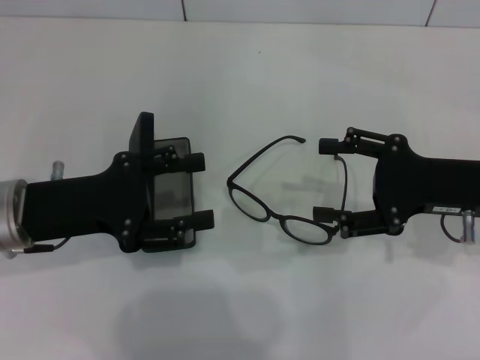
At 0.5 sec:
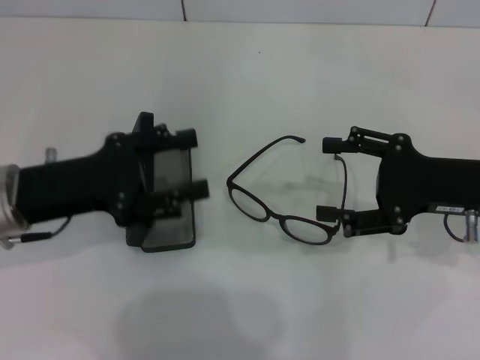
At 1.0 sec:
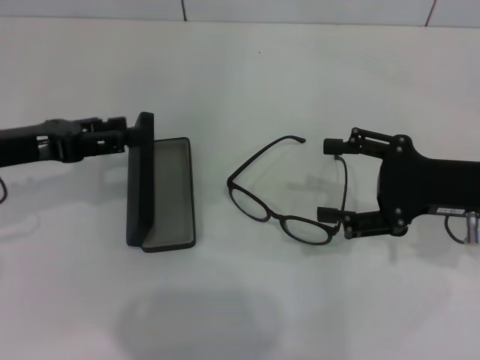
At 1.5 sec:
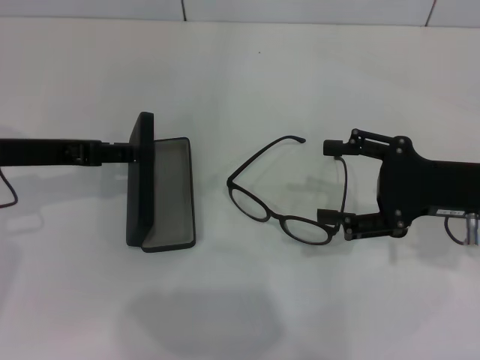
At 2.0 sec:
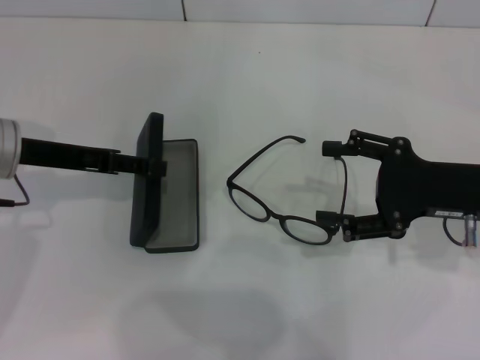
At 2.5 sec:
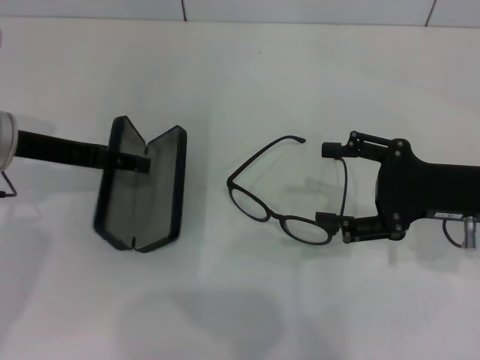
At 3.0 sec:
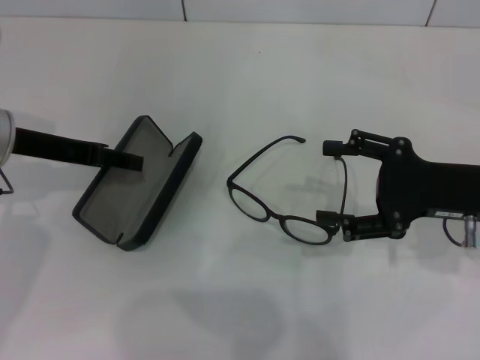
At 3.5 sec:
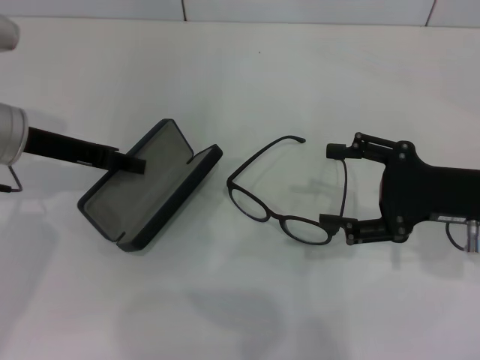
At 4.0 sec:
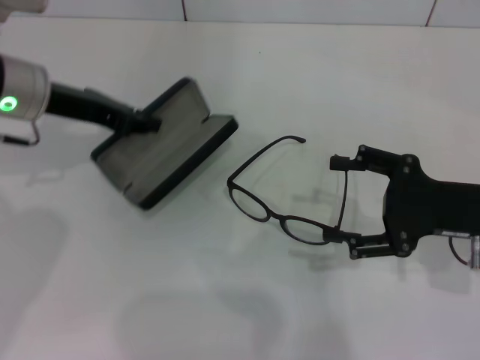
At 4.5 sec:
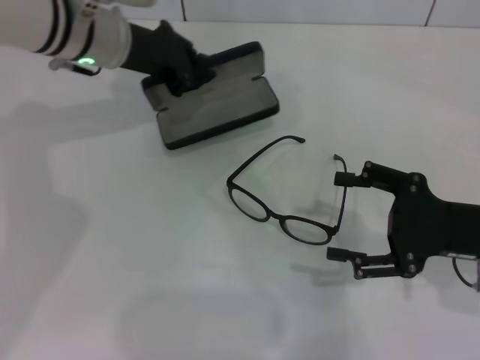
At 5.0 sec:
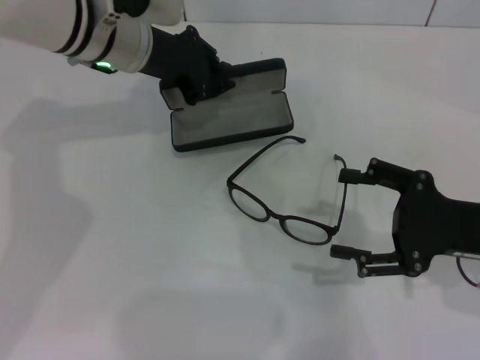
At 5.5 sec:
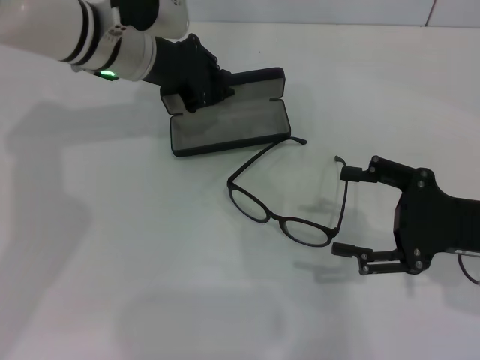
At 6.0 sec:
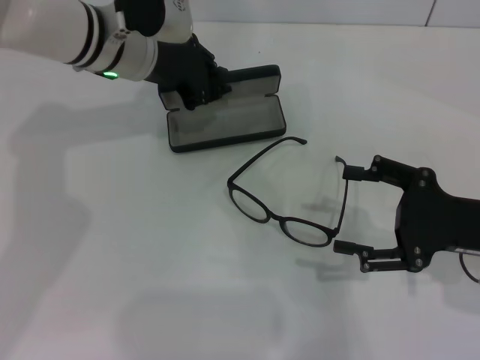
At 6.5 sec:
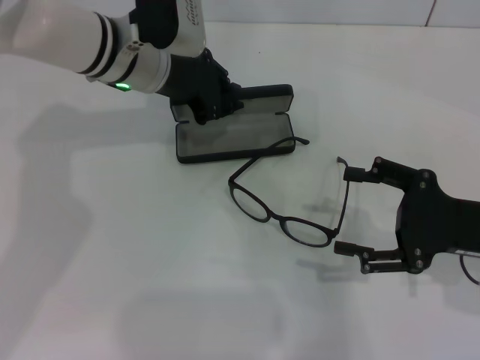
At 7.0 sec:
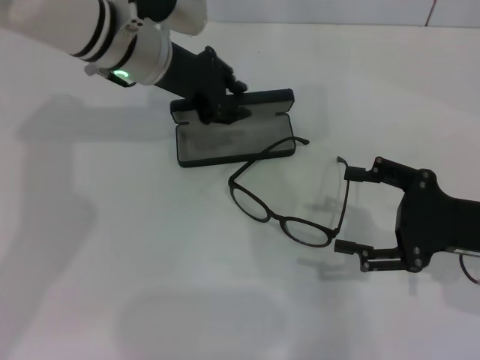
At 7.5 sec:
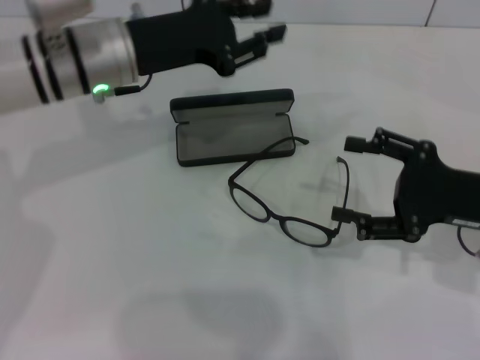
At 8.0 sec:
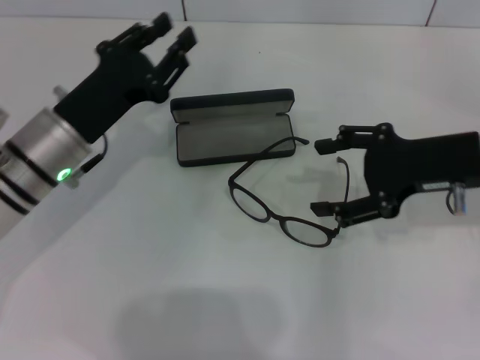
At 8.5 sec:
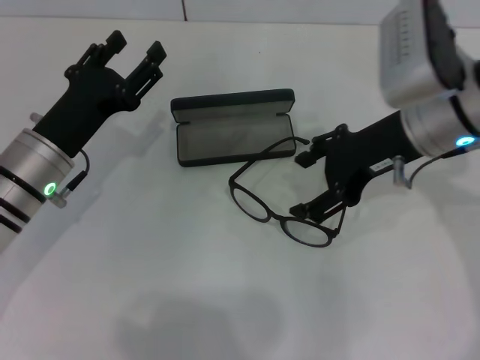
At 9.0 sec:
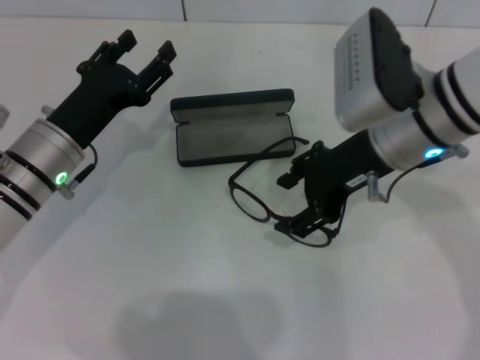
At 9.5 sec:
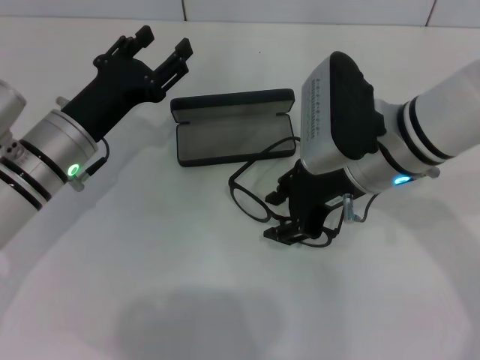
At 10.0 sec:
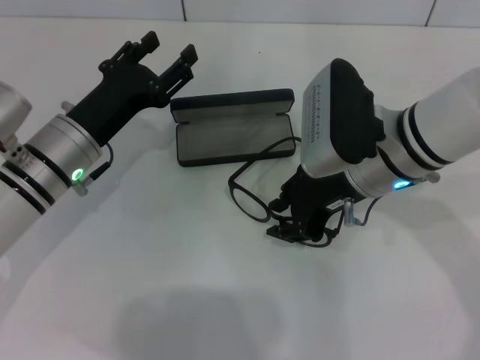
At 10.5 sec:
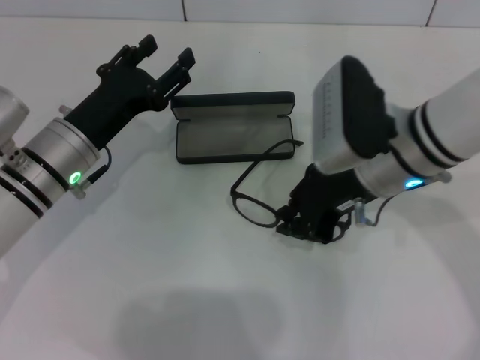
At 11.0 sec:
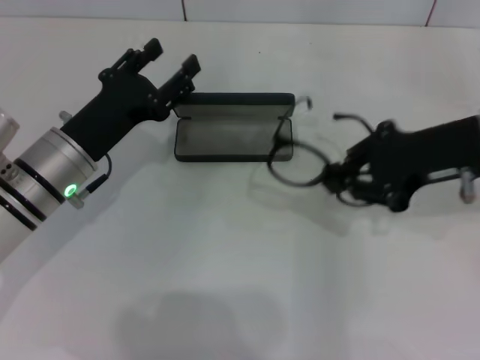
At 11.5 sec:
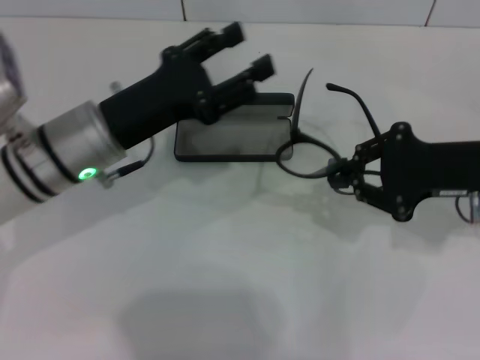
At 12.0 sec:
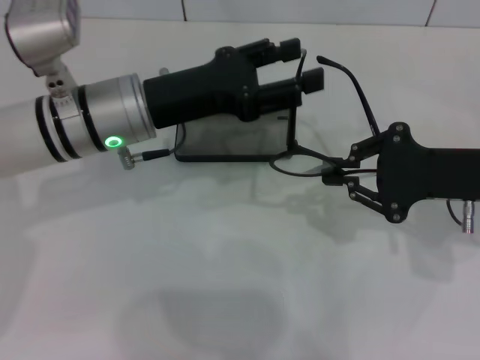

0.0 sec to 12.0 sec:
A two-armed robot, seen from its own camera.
Step, 0.0 sec to 3.0 sec: Grab the glasses case with your left hand.
Step, 3.5 sec to 6.5 sec: Place the glasses case in the center of the table with your left hand.
Step, 7.0 sec to 10.0 sec: Grab the eyeglass frame with your right hand.
0.0 sec to 2.0 sec: The left gripper goes about 5 cm forward.
2.0 sec to 4.0 sec: The left gripper shifts by about 5 cm, and closes.
4.0 sec to 6.0 sec: The left gripper is displaced to the right and forward by approximately 10 cm.
6.0 sec to 8.0 sec: The right gripper heads upward and forward, covering about 10 cm; the left gripper heads backward, downward and to the left, covering about 15 cm.
8.0 sec to 10.0 sec: The left gripper opens. The right gripper travels to the left by approximately 10 cm, and closes up.
10.0 sec to 12.0 sec: The right gripper heads to the right, covering some 15 cm, and closes up, while the left gripper is displaced upward and to the right by roughly 10 cm.

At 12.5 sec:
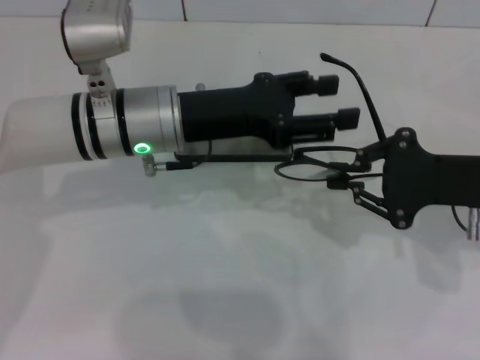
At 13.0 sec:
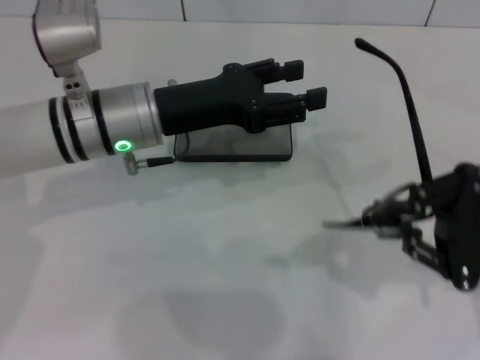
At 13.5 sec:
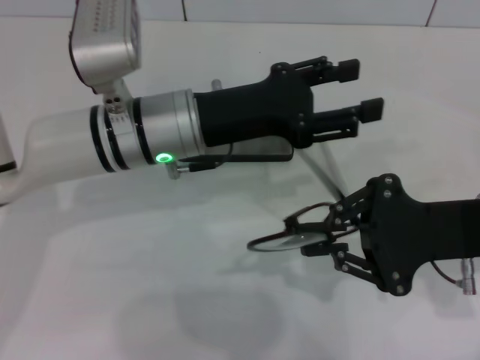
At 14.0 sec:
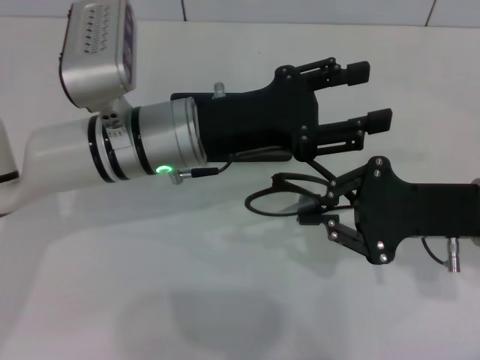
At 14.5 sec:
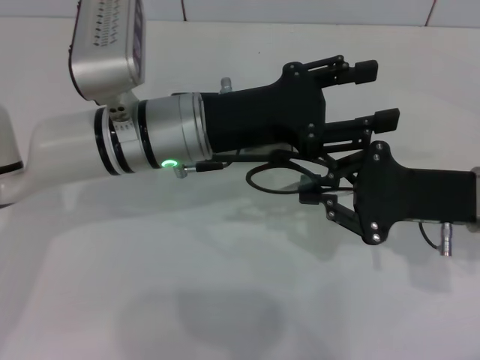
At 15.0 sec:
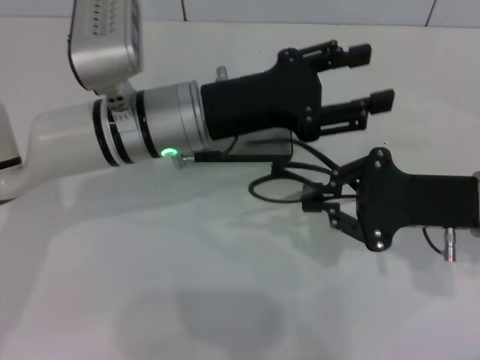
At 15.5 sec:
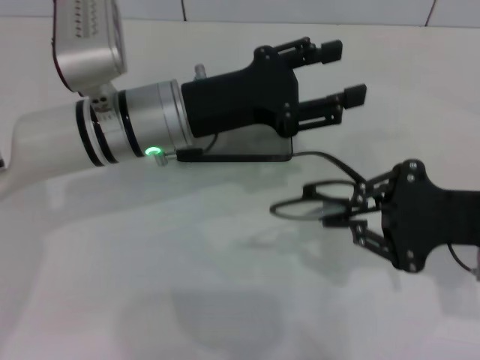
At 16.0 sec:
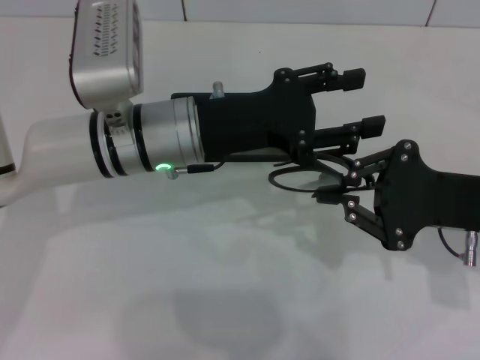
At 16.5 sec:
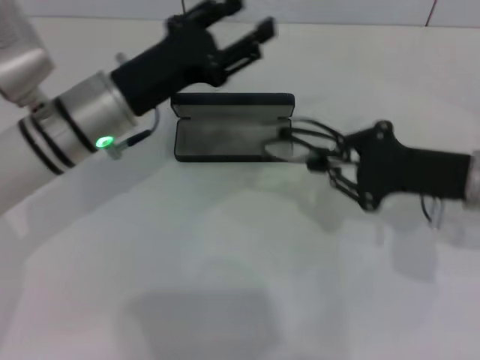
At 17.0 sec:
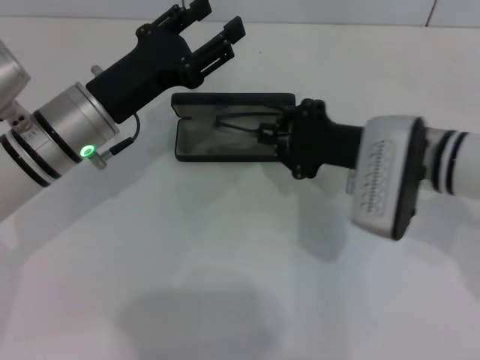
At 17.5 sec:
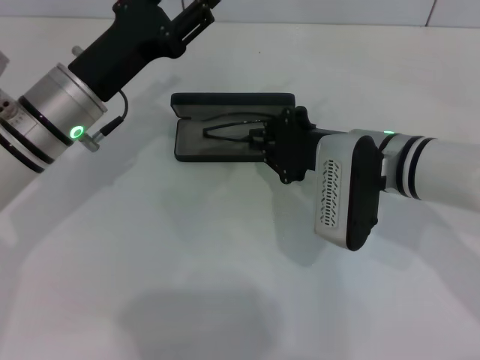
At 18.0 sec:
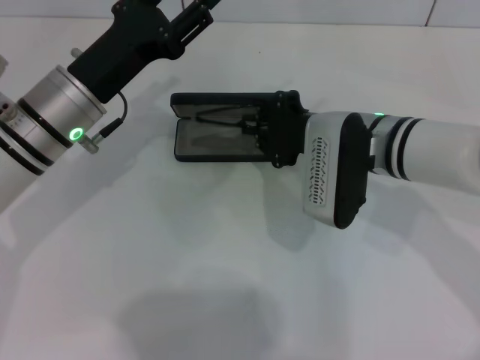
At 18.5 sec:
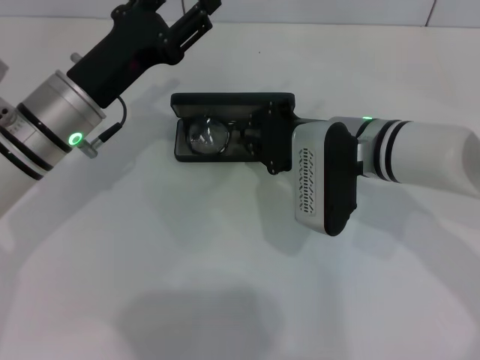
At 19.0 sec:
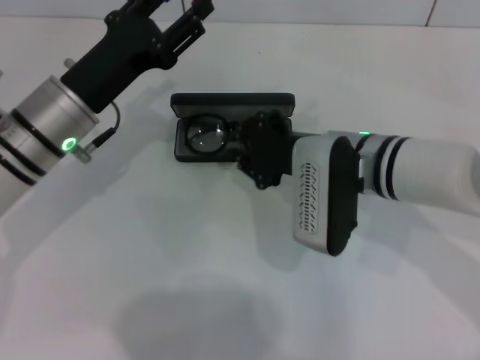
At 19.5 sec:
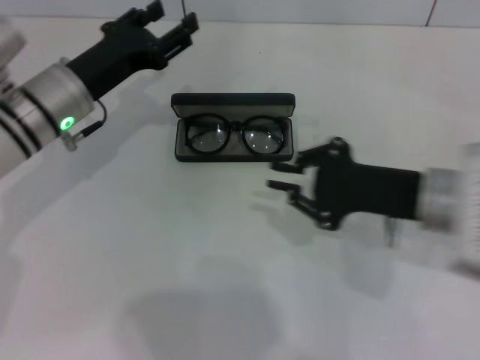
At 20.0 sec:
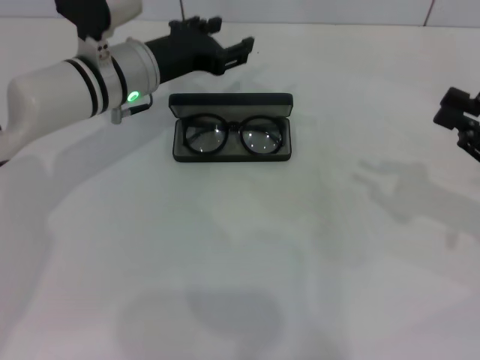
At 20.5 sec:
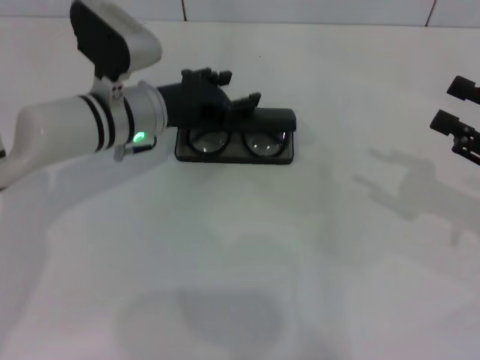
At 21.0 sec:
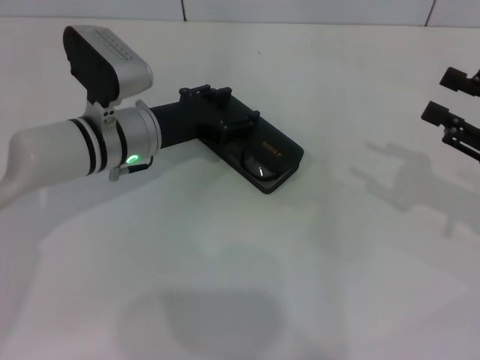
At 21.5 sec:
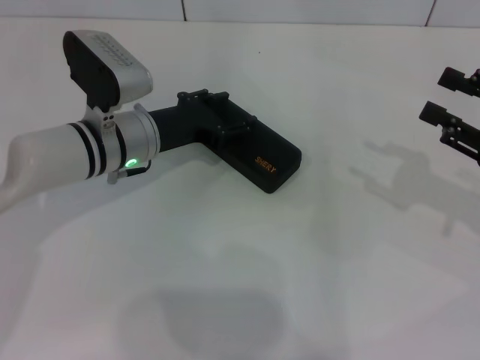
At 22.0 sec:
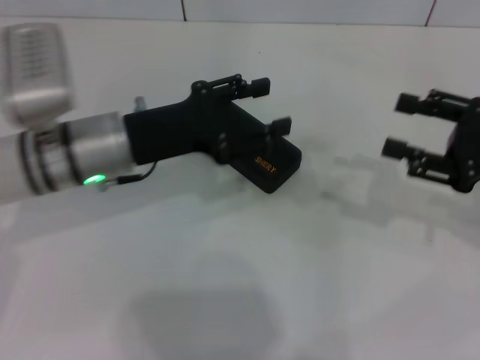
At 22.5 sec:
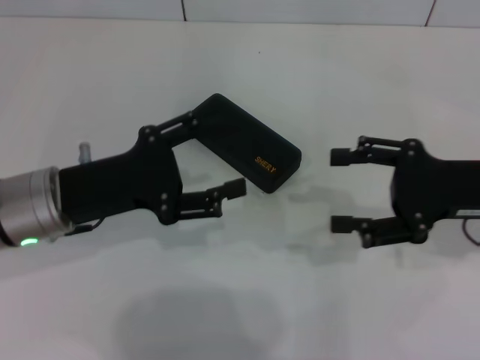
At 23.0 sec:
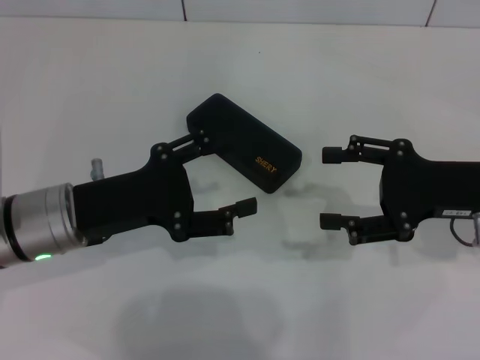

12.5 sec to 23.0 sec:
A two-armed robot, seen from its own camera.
Step, 12.5 sec to 14.5 sec: Fold the frame with your left hand.
Step, 15.0 sec to 18.5 sec: Put the glasses into the case with your right hand.
Step, 19.0 sec to 21.0 sec: Close the glasses case with your left hand.
14.5 sec to 16.5 sec: The left gripper is displaced to the left by roughly 5 cm.
16.5 sec to 19.0 sec: The right gripper is displaced to the left by about 15 cm.
19.0 sec to 21.0 sec: The right gripper shifts some 25 cm to the right, and opens up; the left gripper shifts by roughly 5 cm.
21.0 sec to 23.0 sec: The right gripper shifts roughly 10 cm to the left, and opens its fingers, while the left gripper moves backward and to the left, roughly 10 cm.

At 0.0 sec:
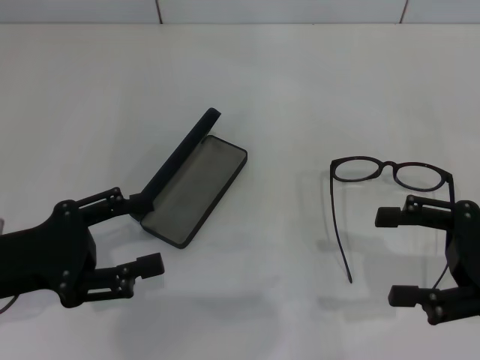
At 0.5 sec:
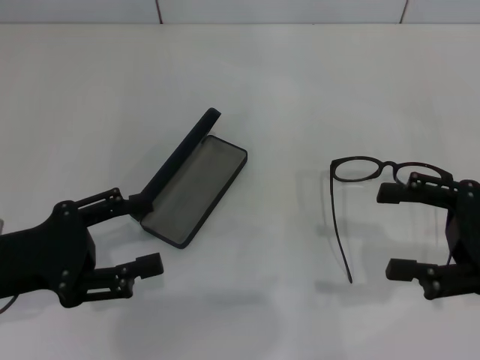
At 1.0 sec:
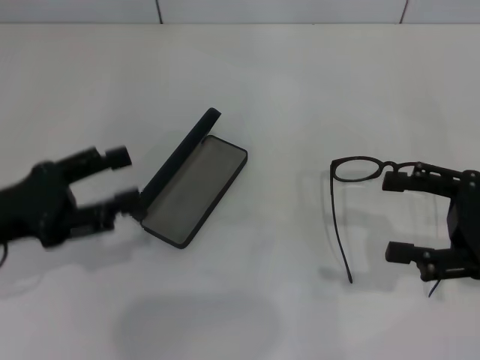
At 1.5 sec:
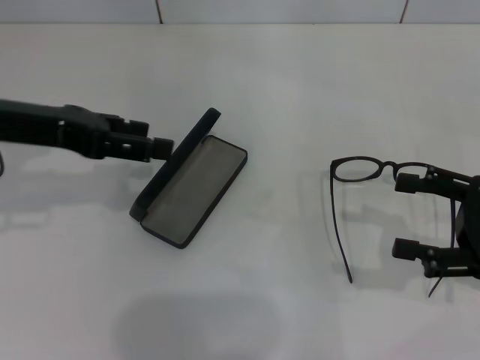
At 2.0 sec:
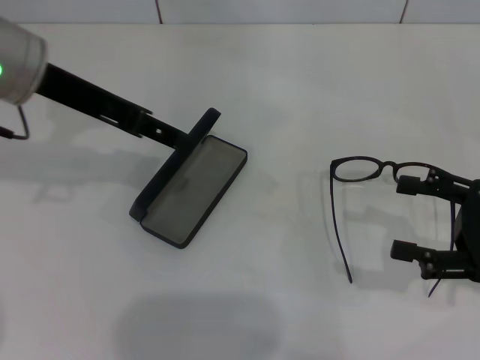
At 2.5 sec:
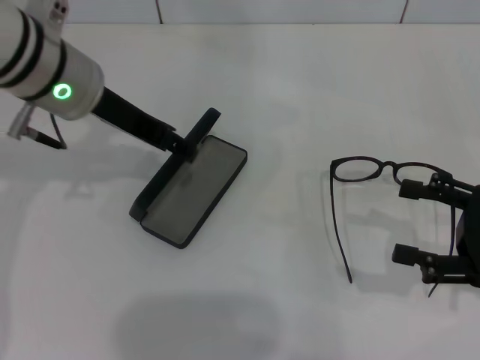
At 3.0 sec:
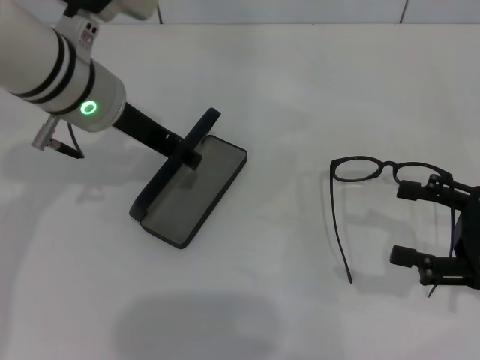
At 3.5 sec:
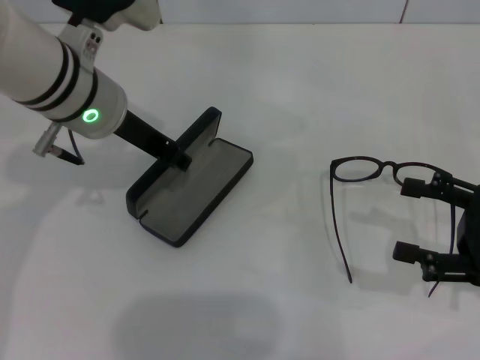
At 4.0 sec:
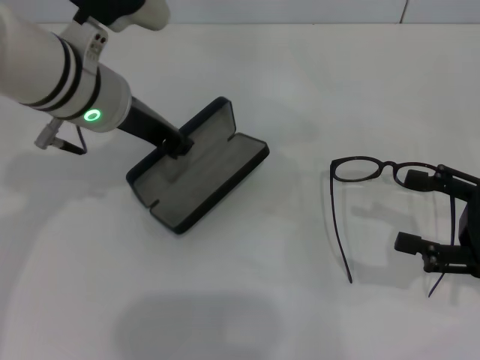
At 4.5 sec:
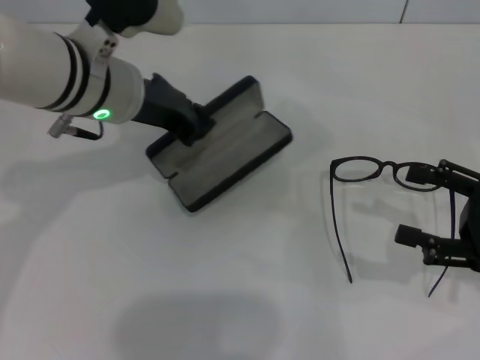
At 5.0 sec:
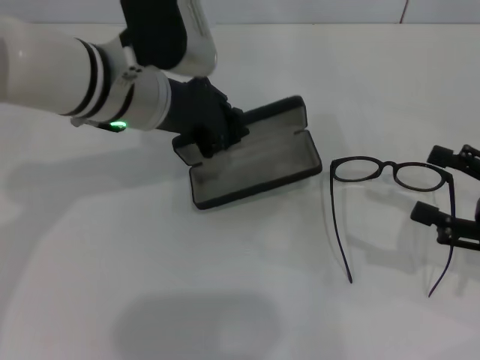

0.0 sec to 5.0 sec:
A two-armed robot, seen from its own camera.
Step, 0.0 sec to 3.5 sec: Grab the glasses case with your left hand.
0.0 sec to 2.5 sec: The left gripper moves forward, to the right and upward, some 20 cm.
2.5 sec to 5.0 sec: The left gripper changes place by roughly 5 cm, and closes up.
